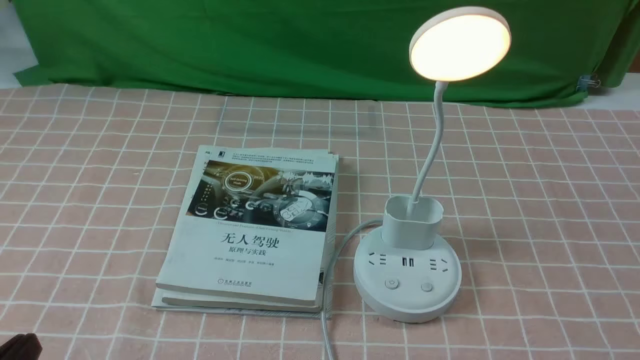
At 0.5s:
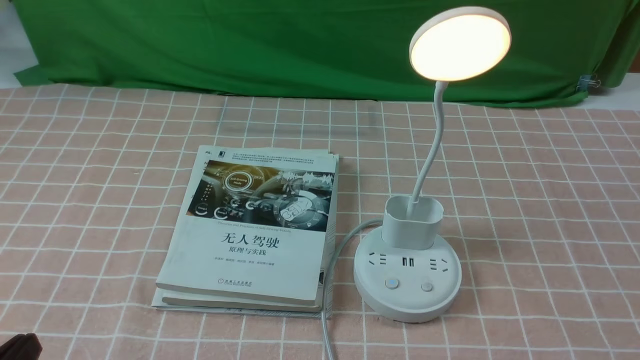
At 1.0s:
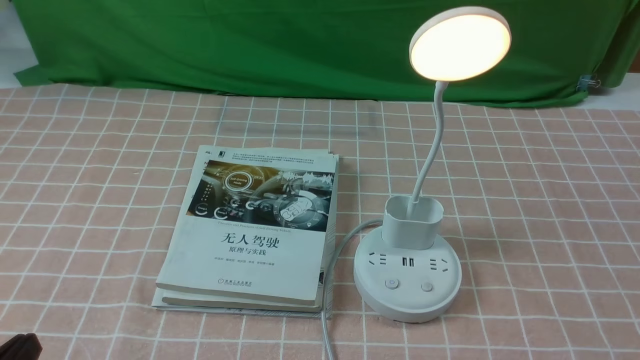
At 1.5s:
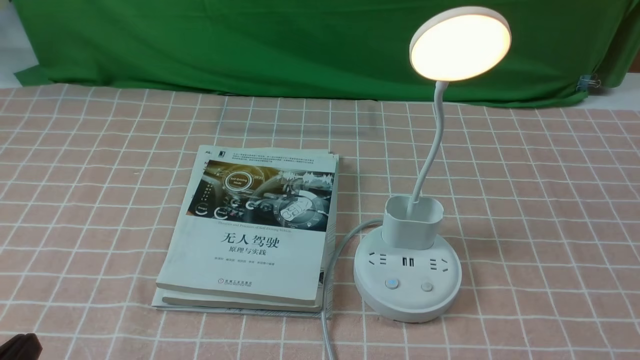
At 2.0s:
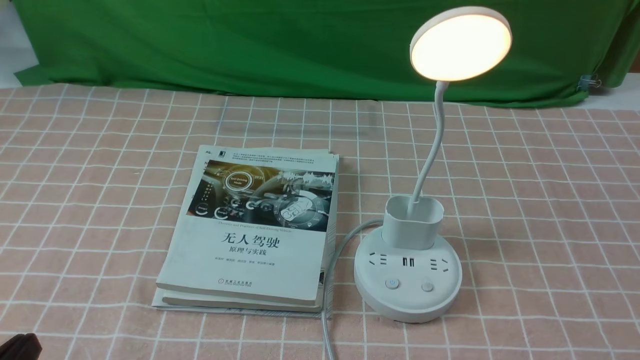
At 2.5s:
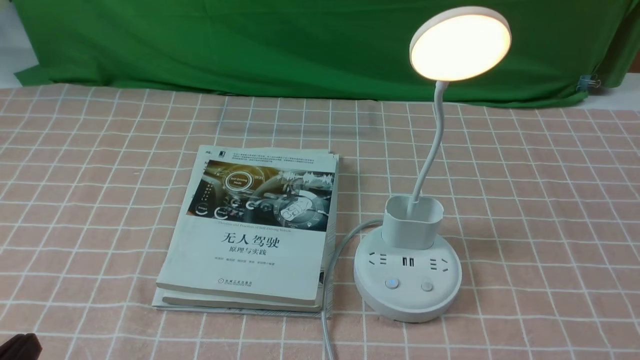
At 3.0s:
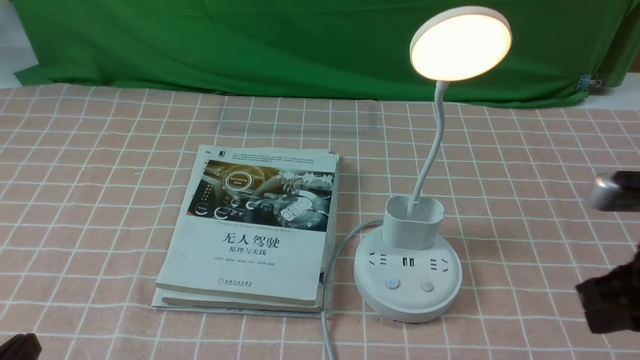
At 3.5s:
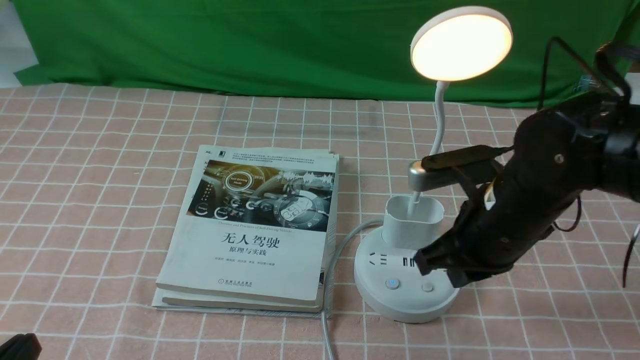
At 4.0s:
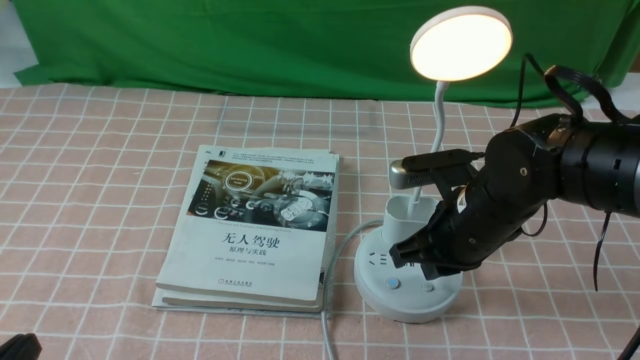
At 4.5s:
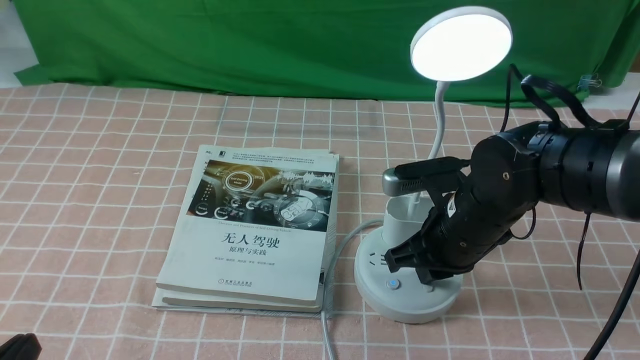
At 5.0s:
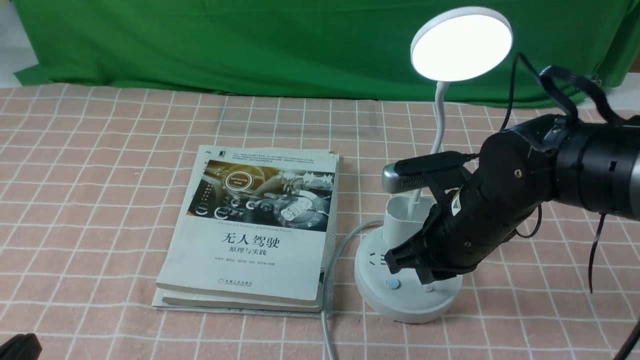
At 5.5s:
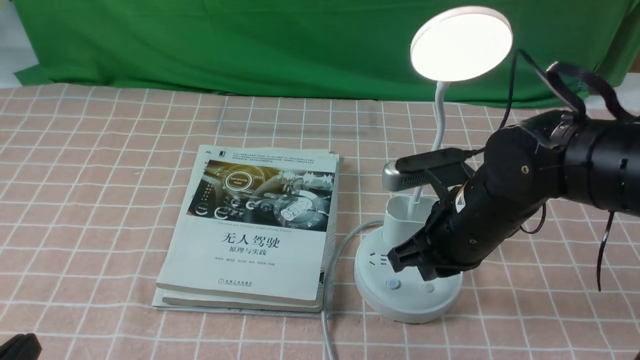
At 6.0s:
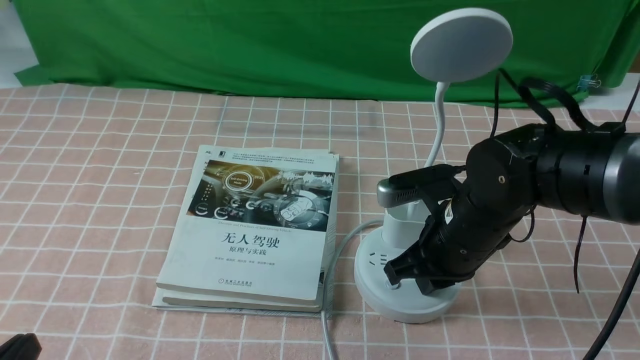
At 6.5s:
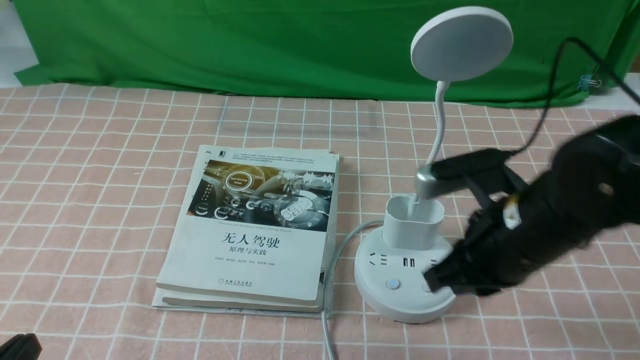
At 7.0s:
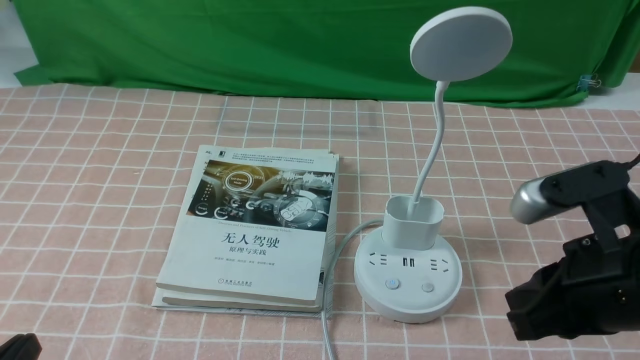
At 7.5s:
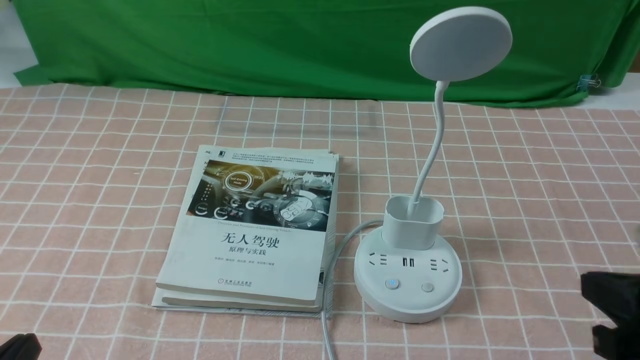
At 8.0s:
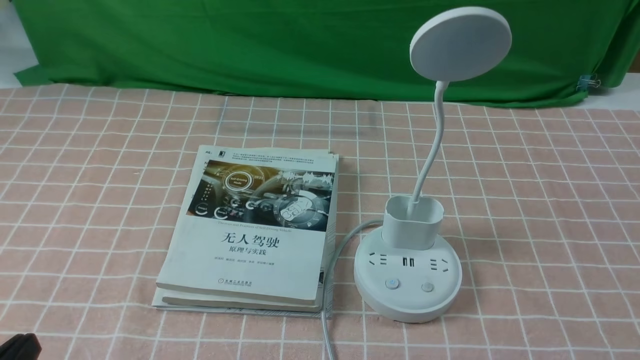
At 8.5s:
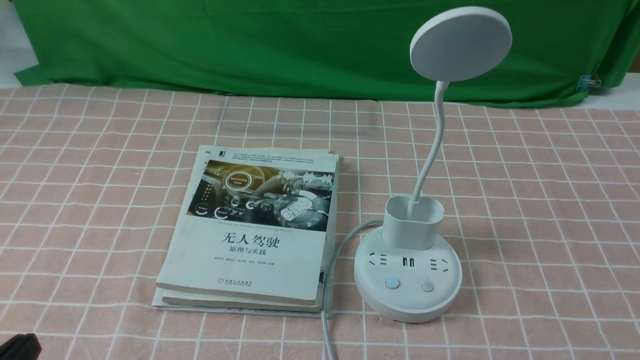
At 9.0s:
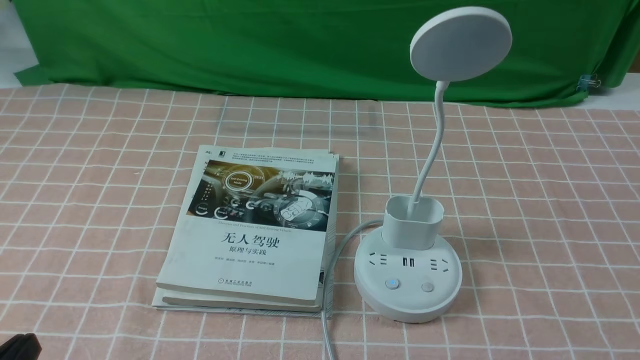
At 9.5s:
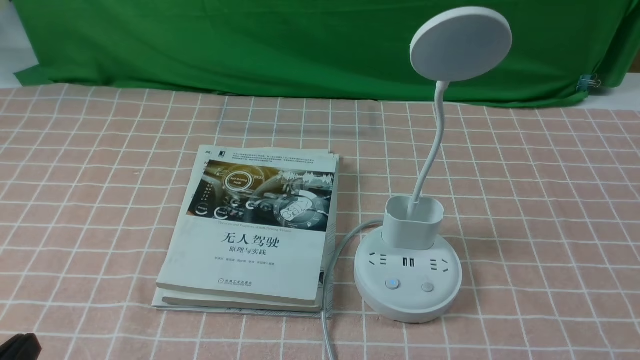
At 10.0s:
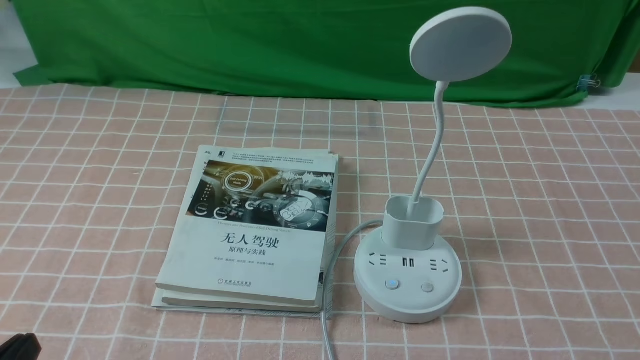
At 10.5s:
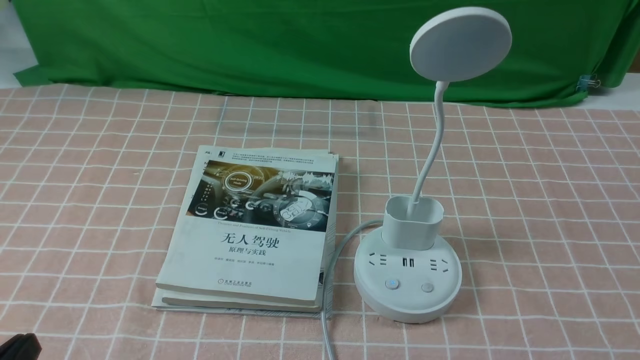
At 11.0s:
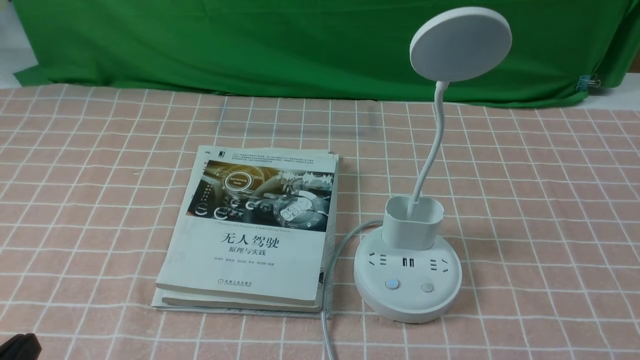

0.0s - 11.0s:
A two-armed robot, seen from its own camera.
Task of the whole recording: turn off the table lamp on the pink coffee tablecloth by hand.
Step, 0.0s - 6.0s: use the right arm to press the button switch on the lamp holder.
2.0s - 3.5s: The right gripper shifts approximately 30 cm forward and to the left, and closes.
3.5s - 5.5s: The grippers move only a little.
5.5s - 7.5s: The right gripper travels backward and to the right by approximately 20 cm.
7.5s - 9.0s: The right gripper travels downward and backward by about 10 cm.
